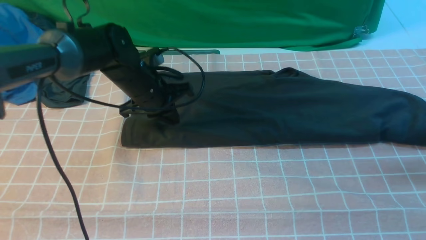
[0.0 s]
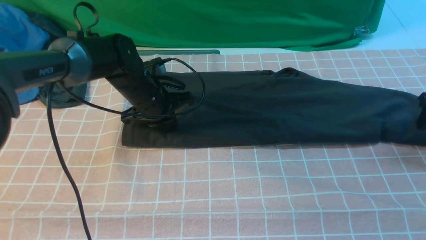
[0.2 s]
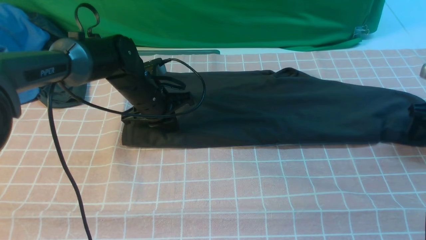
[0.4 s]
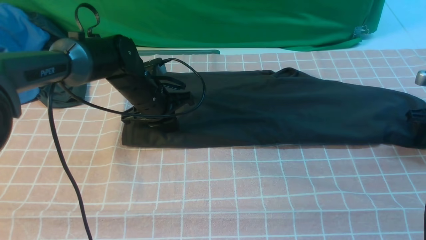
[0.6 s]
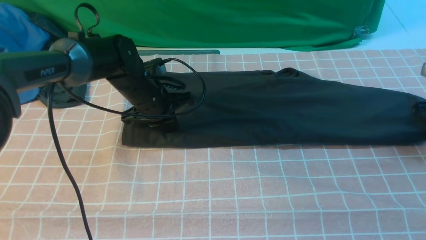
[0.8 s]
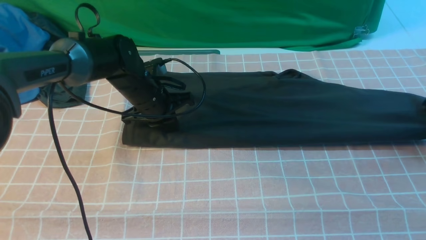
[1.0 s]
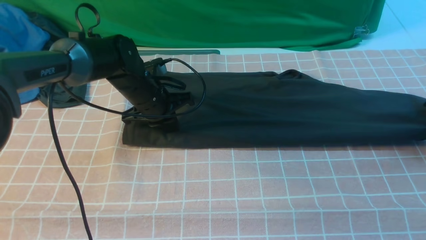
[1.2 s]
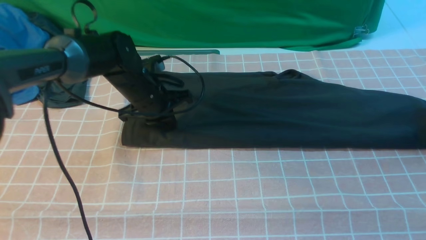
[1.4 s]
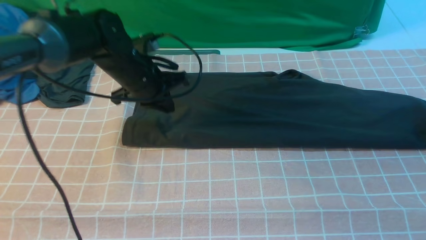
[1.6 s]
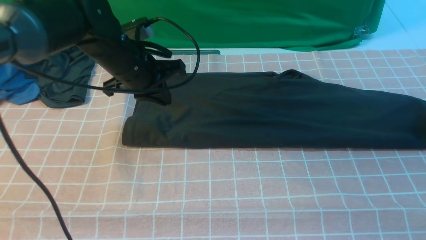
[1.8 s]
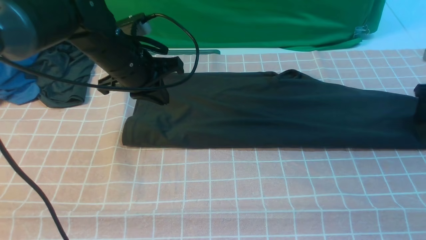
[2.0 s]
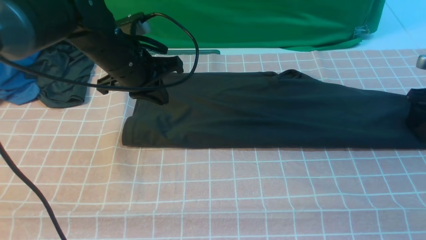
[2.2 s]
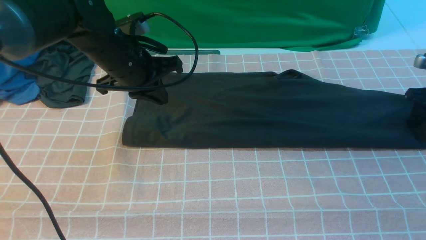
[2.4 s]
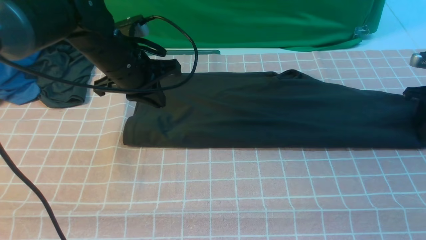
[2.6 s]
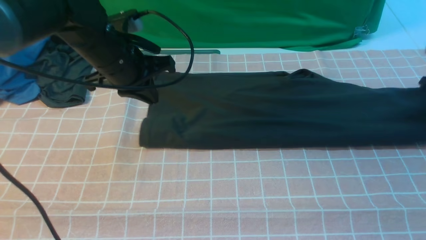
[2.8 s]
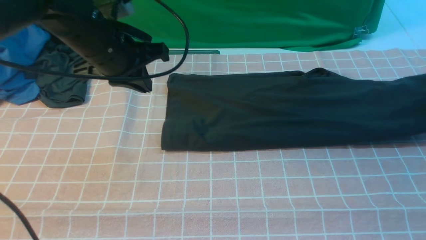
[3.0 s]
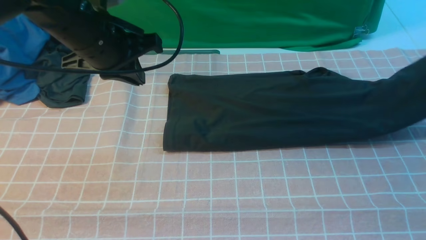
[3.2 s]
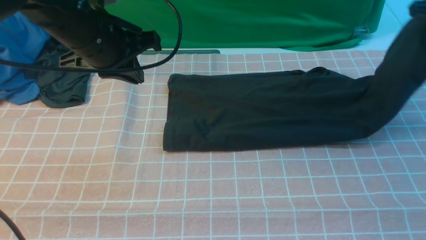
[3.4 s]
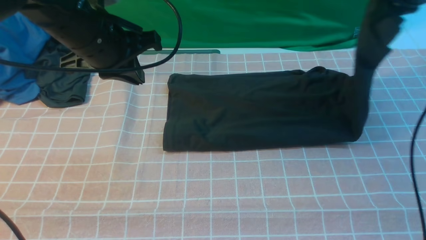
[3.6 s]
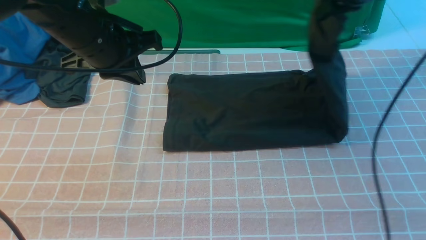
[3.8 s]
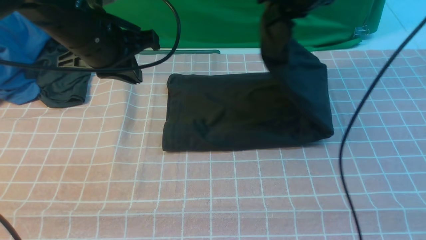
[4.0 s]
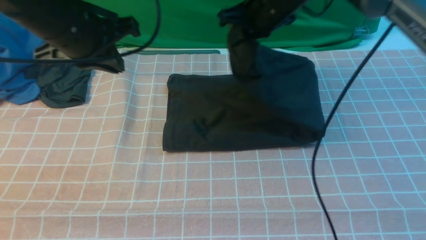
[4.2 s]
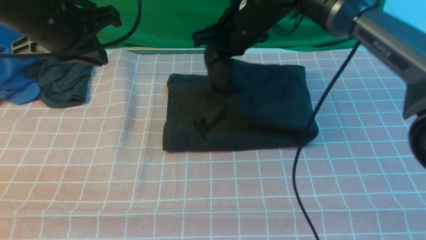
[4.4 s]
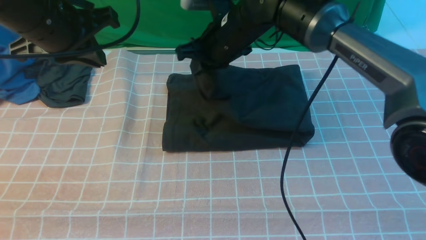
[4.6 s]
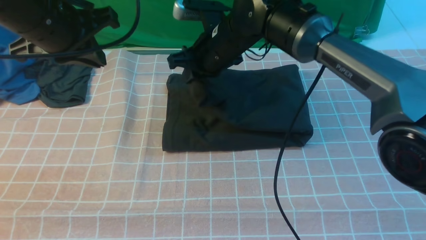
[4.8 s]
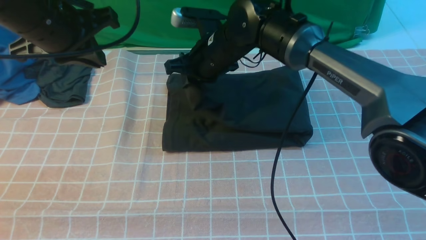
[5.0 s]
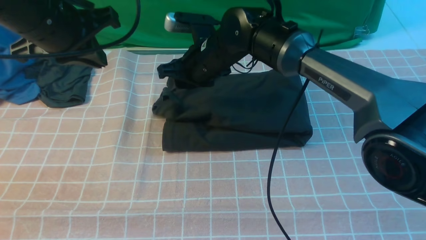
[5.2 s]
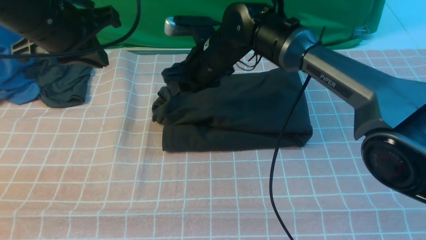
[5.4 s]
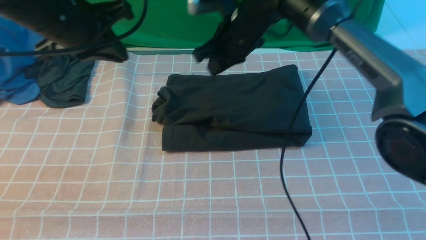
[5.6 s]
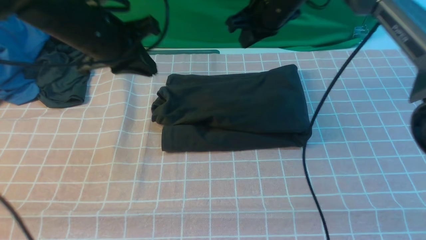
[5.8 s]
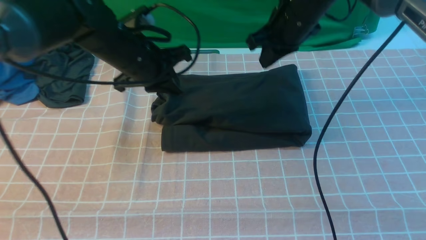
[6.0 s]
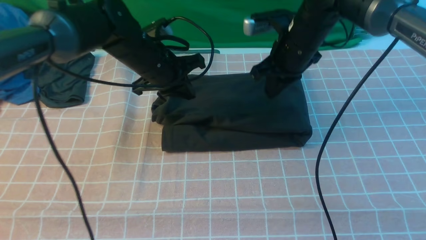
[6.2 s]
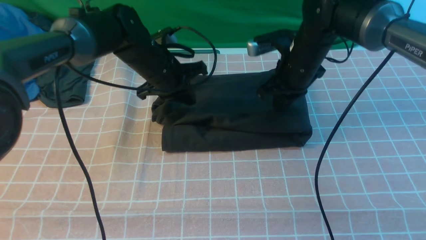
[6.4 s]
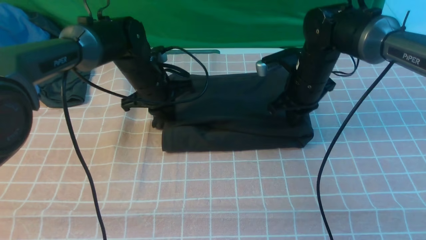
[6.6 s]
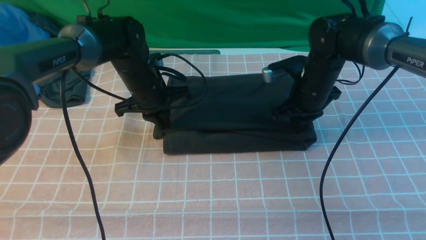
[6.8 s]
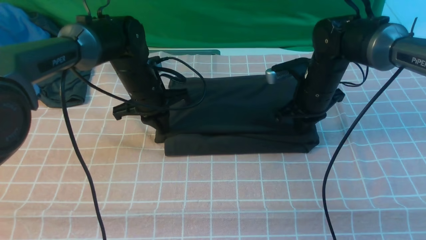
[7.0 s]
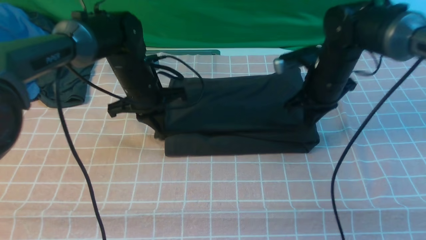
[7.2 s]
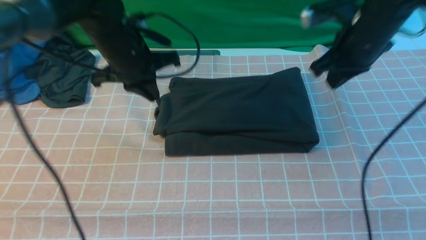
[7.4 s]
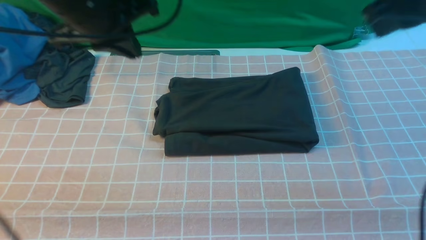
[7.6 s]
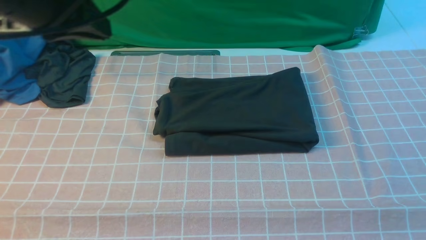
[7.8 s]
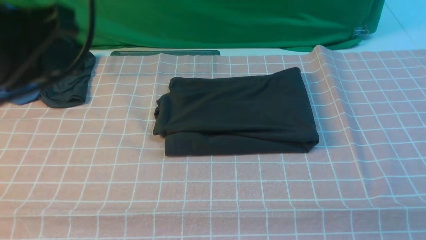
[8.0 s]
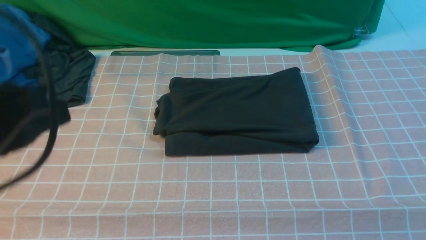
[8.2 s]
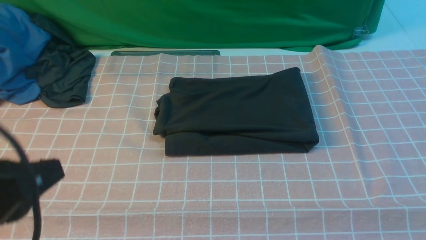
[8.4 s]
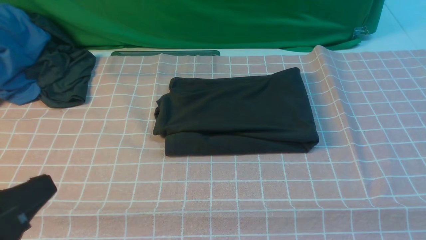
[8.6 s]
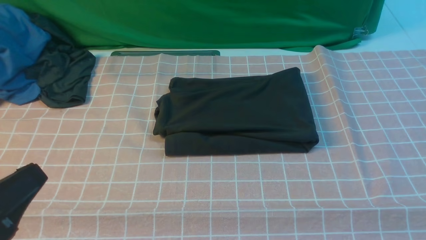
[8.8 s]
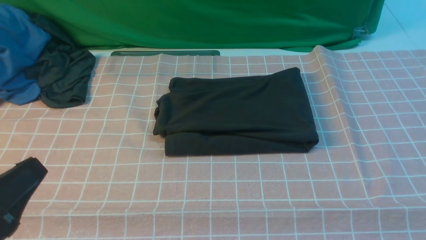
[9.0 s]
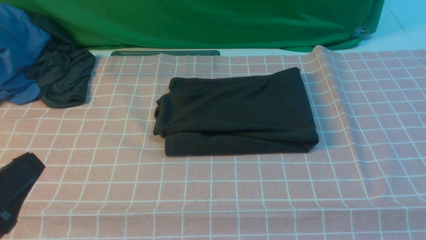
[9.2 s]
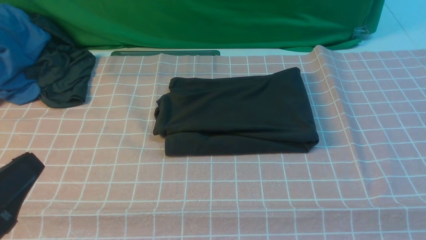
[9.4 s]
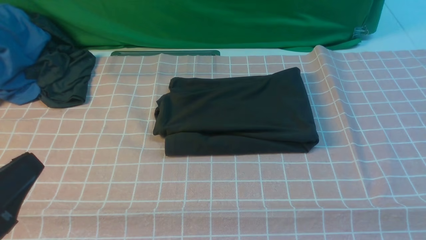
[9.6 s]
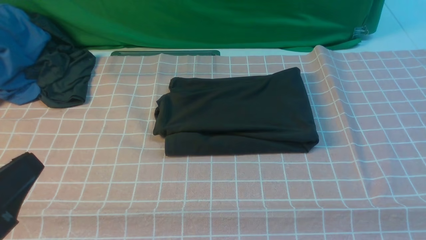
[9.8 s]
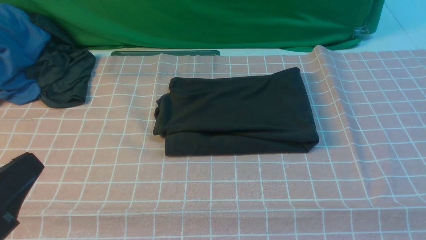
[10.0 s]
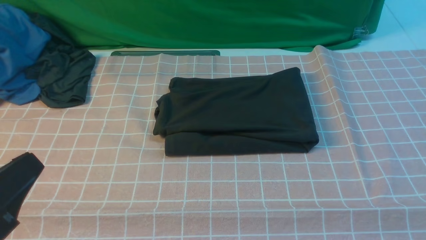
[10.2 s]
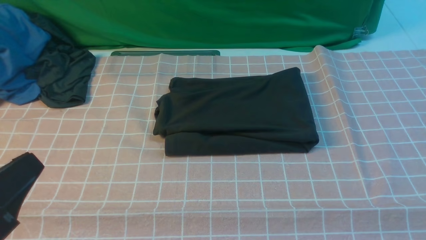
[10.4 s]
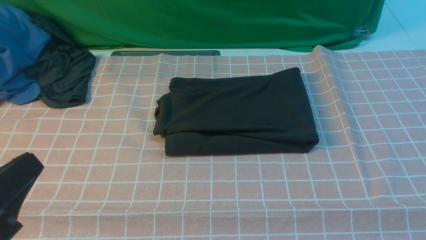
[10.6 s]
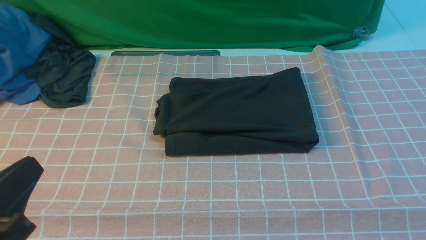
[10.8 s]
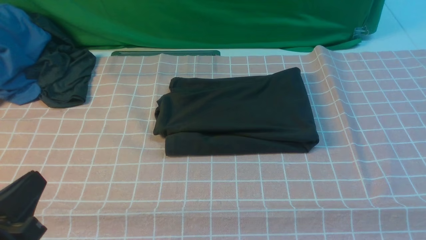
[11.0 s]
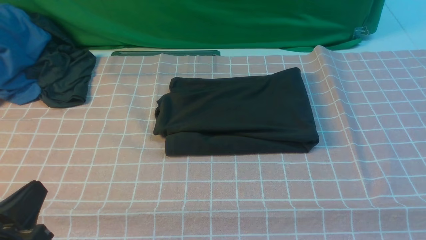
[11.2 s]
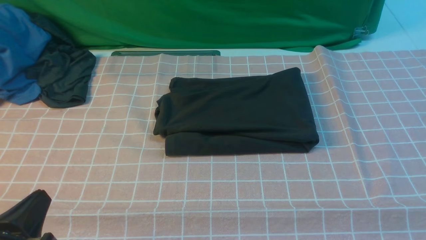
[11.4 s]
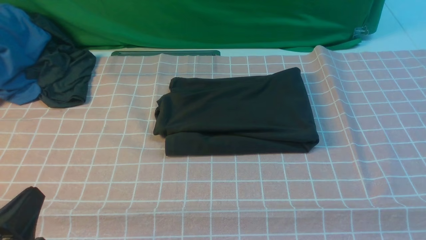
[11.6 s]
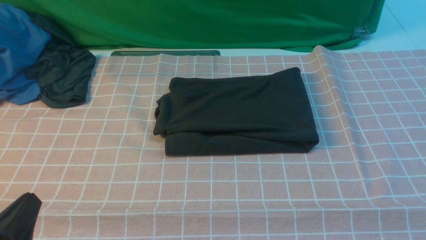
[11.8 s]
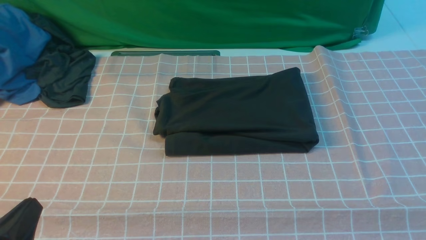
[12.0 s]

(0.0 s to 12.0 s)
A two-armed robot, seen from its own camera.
Step, 0.0 s - 2.0 s: use both arms to drag the lower edge of the fabric forward and fold it over the upper edge.
Step, 2.2 s - 3.0 s: use the right arm to clamp the right edge of the fabric.
Step, 3.2 s - 5.4 s: use the right arm to drag the right edge of the fabric to the left and folds it over the left edge.
0.0 s - 1.6 s: The right gripper heads forward, covering about 5 cm, and opens its fingers.
1.6 s - 3.0 s: The left gripper travels upward by some 10 cm, while the right gripper reaches about 5 cm downward, then returns, and closes up.
3.0 s - 4.4 s: The left gripper changes place by approximately 5 cm. The right gripper moves to the left, approximately 40 cm.
4.4 s - 6.0 s: The right gripper is displaced to the right by some 10 cm, and opens and closes again. The left gripper travels downward, forward and to the right by roughly 15 cm.
6.0 s - 7.6 s: The left gripper moves upward and backward, approximately 15 cm. The right gripper is displaced upward, backward and to the right by some 25 cm.
7.6 s - 9.0 s: The right gripper travels backward by about 35 cm, while the left gripper goes about 30 cm backward and downward.
9.0 s - 10.4 s: Both grippers stay put.
10.4 s - 12.0 s: The left gripper goes some 10 cm downward.

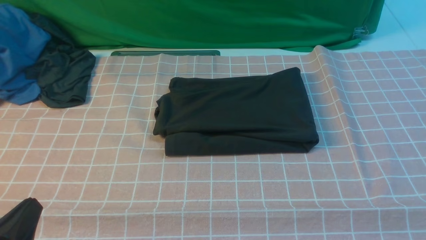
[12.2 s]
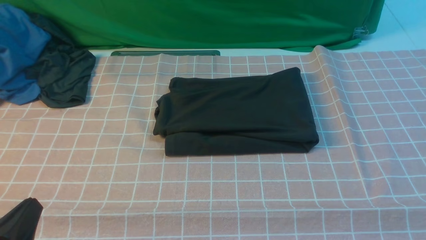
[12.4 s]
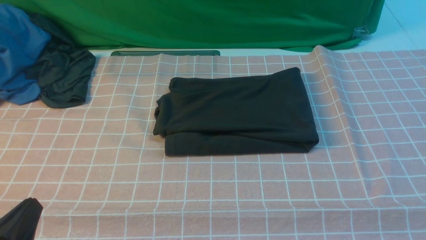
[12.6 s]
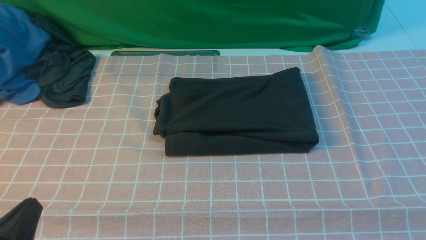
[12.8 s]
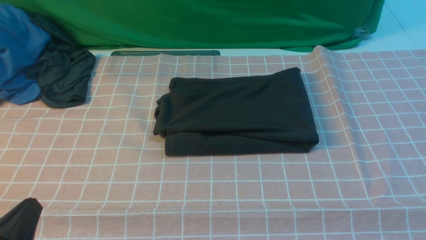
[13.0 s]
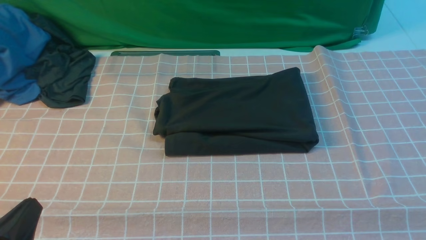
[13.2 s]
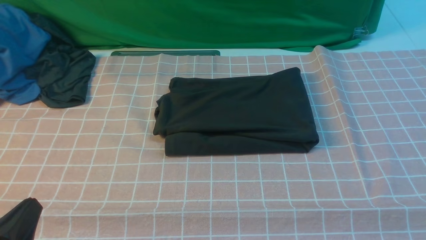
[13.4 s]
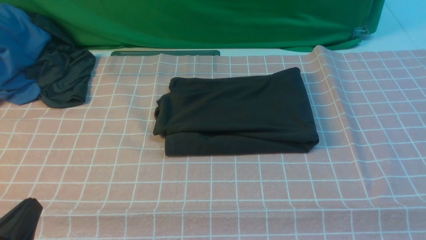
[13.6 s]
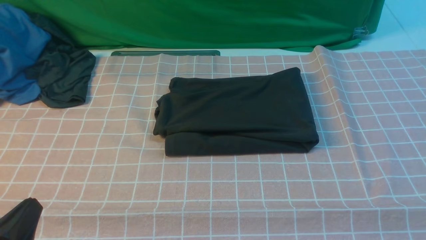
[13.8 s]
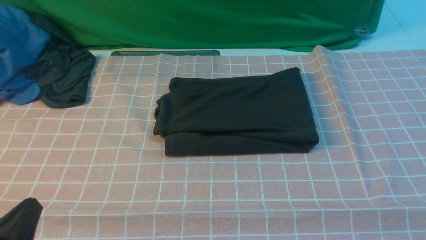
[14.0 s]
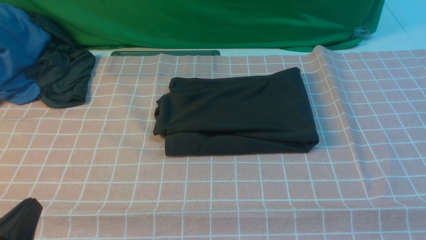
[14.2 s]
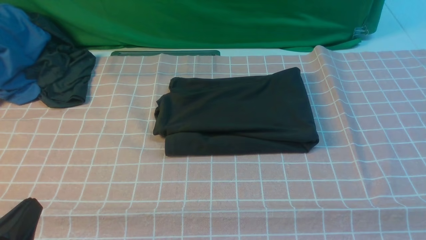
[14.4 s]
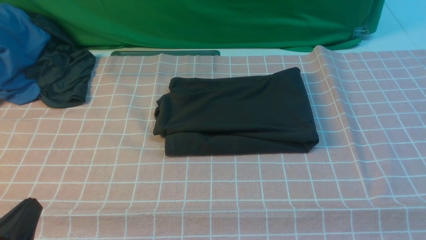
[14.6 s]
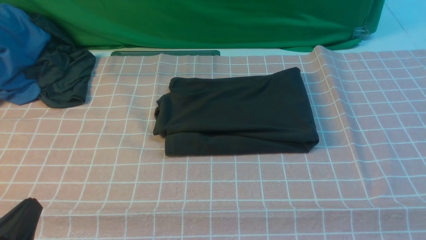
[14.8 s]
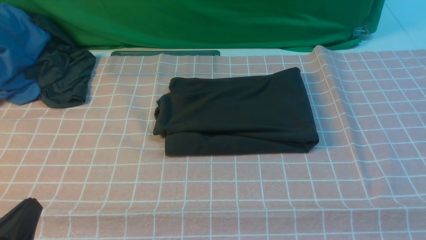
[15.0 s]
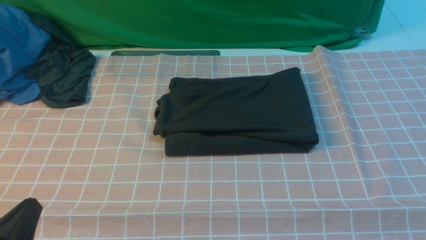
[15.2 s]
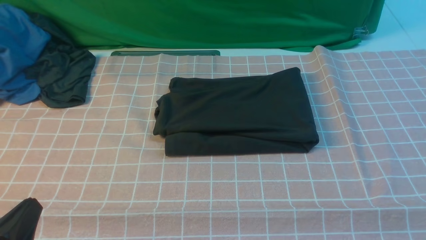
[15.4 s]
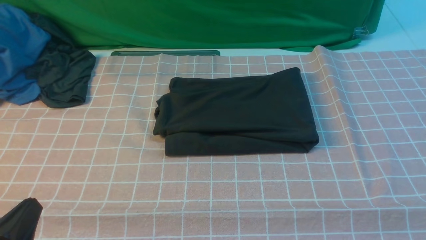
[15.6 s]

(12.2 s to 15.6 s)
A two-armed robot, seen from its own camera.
13.8 s - 15.6 s: Both grippers stay about where they are.

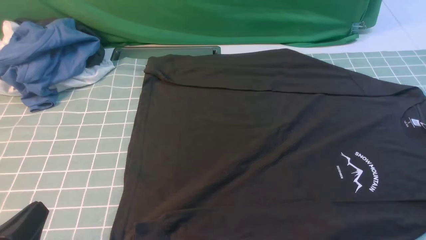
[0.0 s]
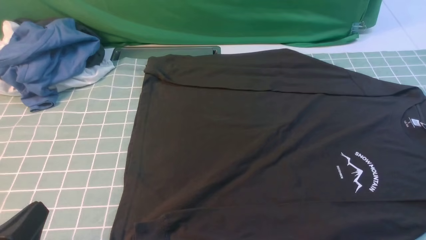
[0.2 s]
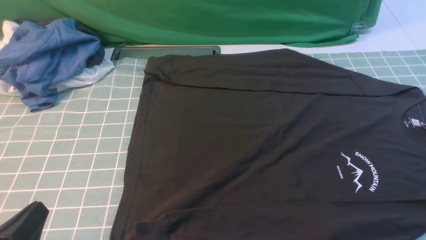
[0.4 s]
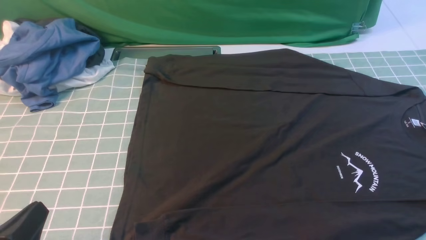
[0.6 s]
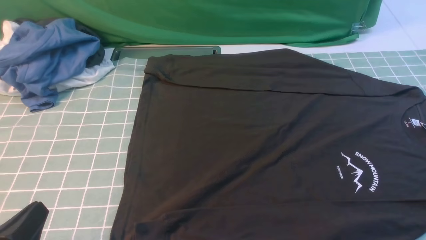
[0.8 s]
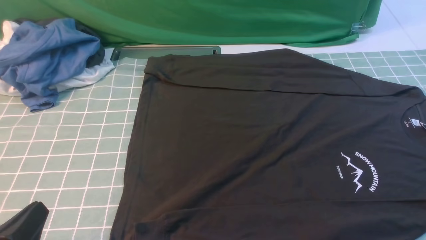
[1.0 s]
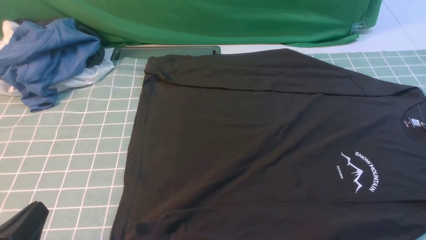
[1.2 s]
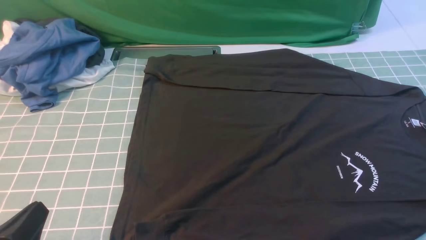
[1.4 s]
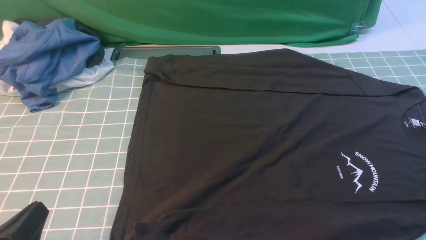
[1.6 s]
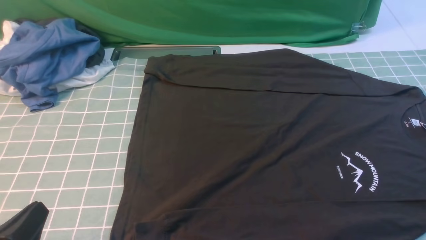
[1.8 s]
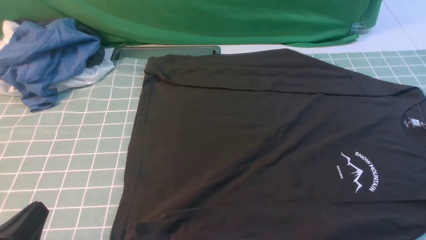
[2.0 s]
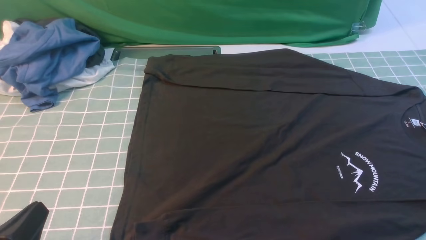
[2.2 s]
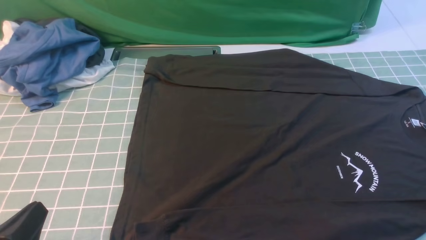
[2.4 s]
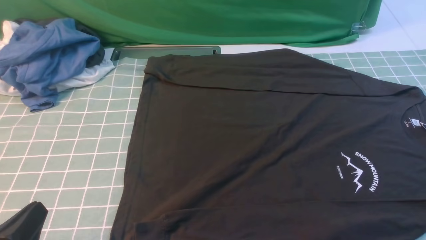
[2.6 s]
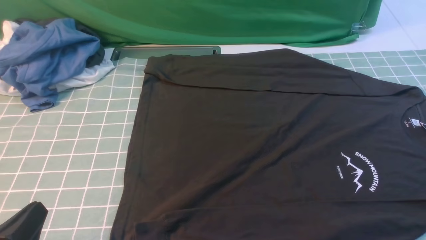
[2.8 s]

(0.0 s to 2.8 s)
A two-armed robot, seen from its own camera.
0.0 s - 2.8 s: Both grippers stay about where they are.
